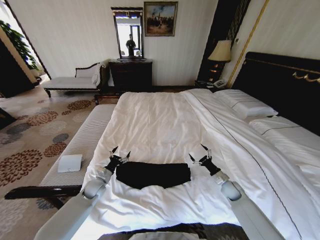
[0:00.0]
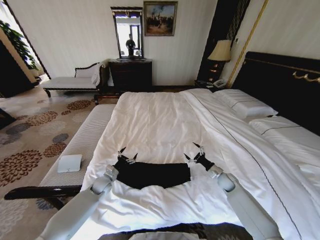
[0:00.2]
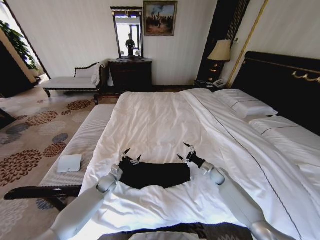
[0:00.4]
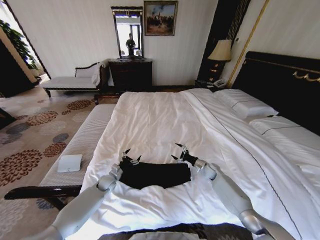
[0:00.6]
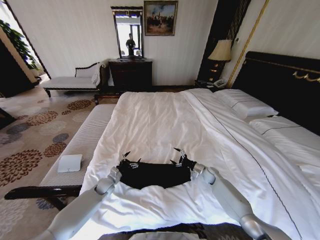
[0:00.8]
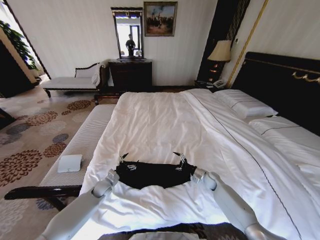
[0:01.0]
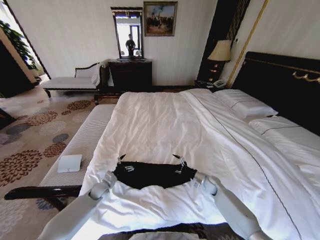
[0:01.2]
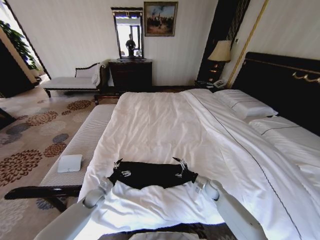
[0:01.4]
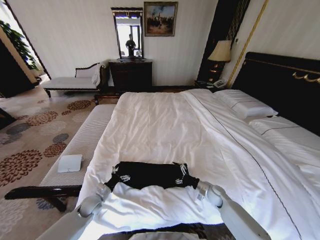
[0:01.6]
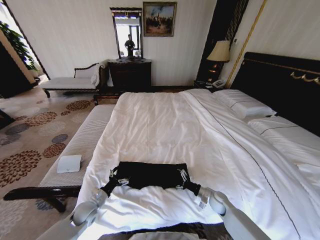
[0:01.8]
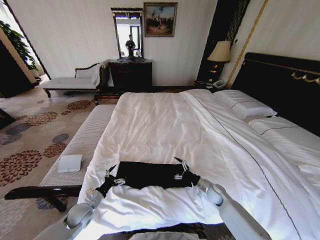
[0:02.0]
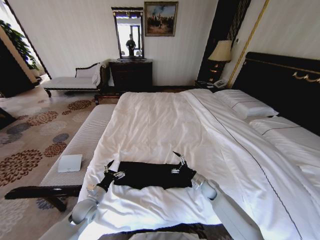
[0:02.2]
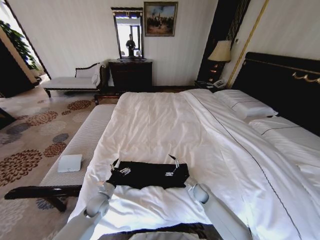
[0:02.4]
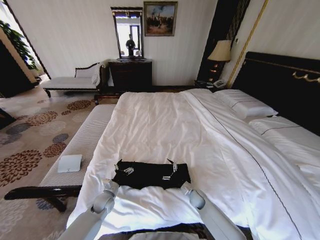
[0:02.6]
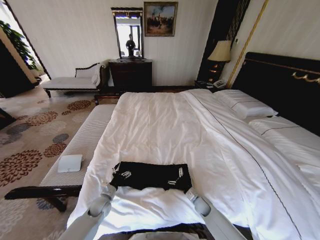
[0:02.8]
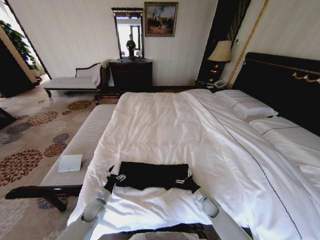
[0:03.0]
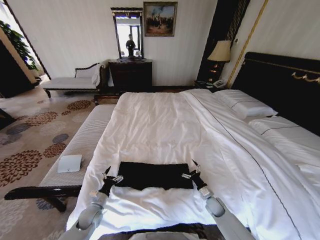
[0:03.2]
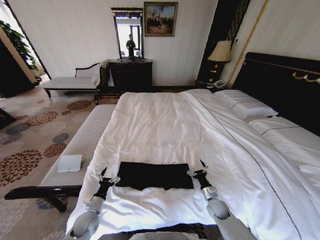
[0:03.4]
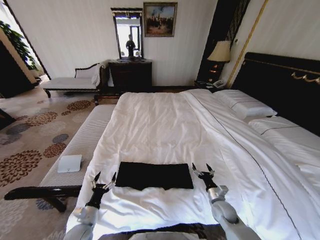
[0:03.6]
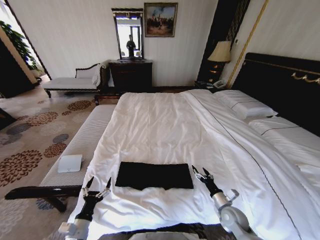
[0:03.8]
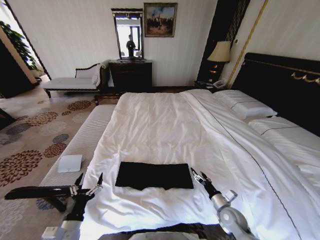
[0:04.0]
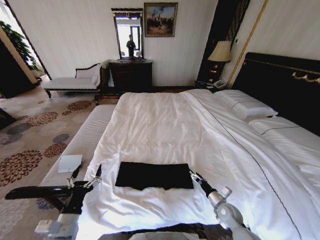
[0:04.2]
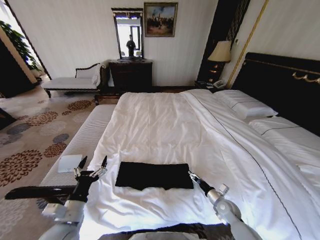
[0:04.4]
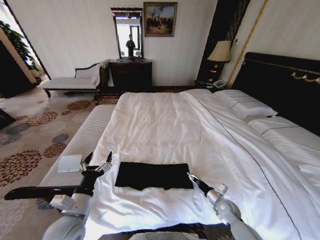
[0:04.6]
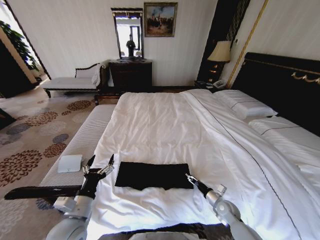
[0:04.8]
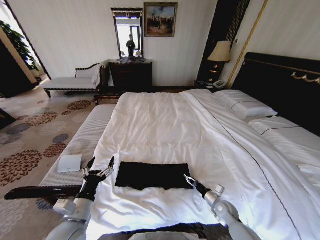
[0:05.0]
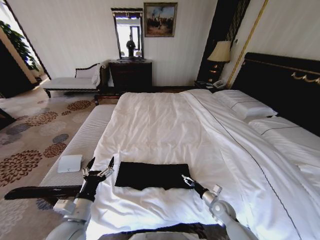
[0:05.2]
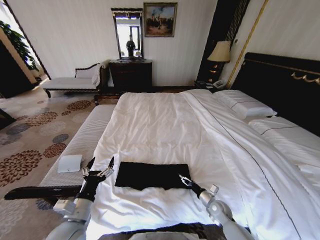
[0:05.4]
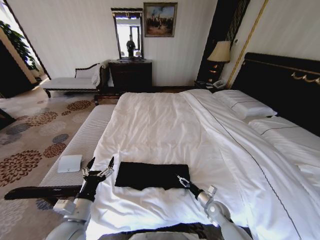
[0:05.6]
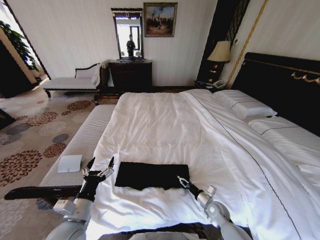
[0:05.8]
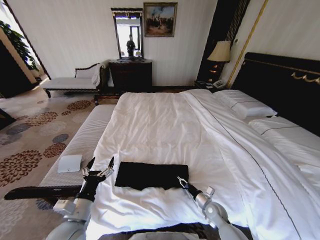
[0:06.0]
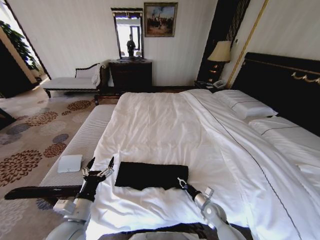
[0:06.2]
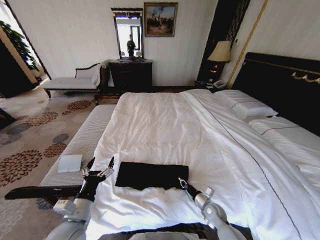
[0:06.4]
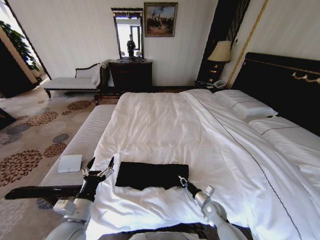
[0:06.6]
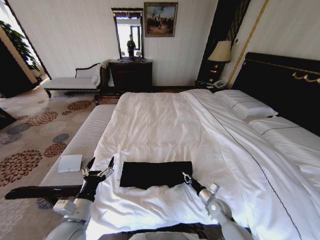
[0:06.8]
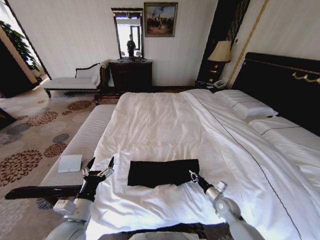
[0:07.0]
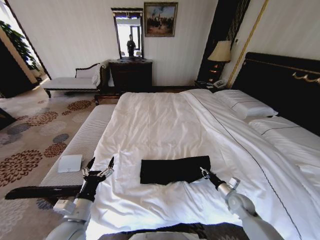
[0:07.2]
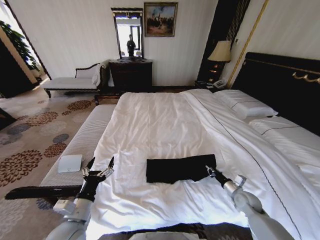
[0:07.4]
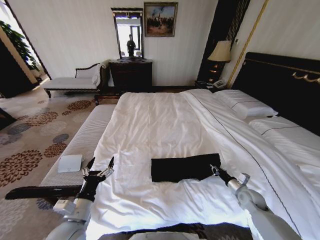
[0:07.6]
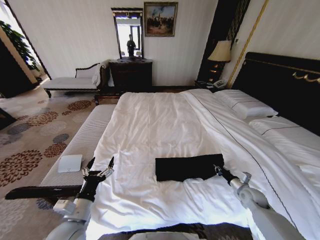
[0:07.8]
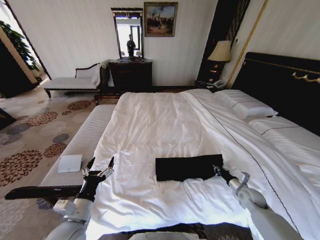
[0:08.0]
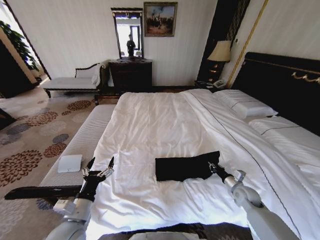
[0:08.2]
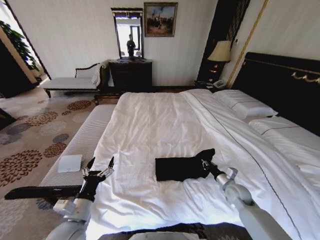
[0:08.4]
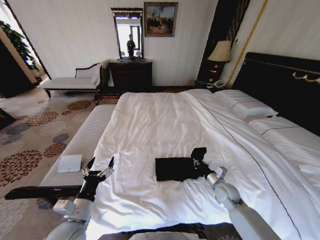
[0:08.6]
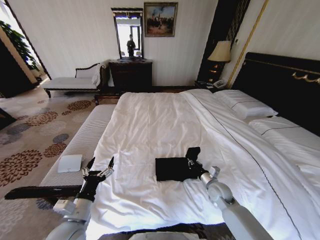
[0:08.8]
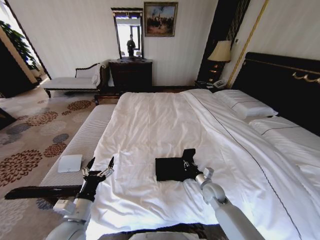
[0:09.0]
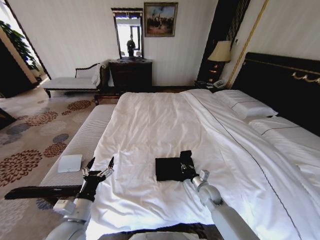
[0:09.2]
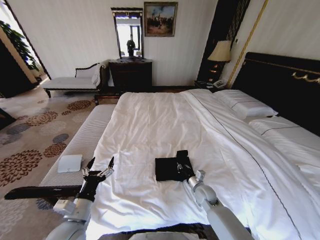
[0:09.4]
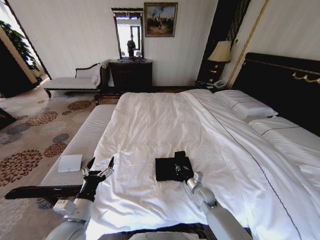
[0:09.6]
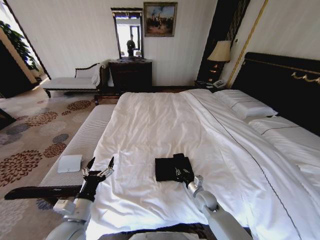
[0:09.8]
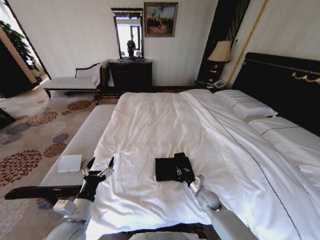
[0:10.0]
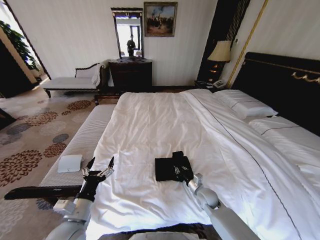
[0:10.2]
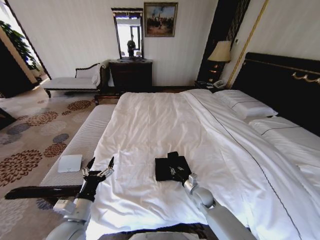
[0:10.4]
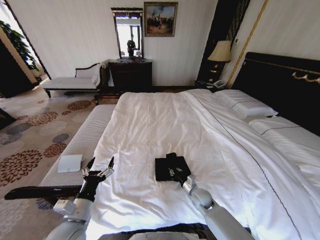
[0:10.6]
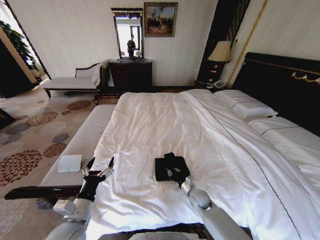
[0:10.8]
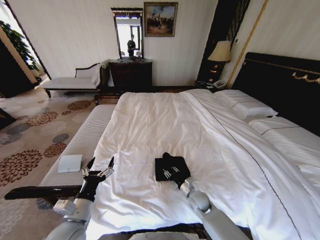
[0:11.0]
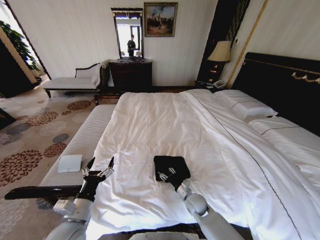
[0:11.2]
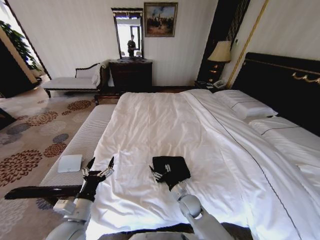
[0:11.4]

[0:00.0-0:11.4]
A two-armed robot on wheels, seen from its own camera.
Task of the whole recording: Fold the clothes on the bed.
0:00.0 to 0:01.4: The right gripper is displaced to the left by approximately 5 cm, and moves about 10 cm forward and comes back; the left gripper heads downward, covering some 5 cm.
0:01.4 to 0:02.8: The right gripper shifts approximately 10 cm downward, backward and to the left.
0:02.8 to 0:04.2: The left gripper heads upward and backward, covering roughly 25 cm, while the right gripper goes approximately 15 cm upward, to the right and backward.
0:04.2 to 0:05.6: The left gripper changes place by some 5 cm.
0:05.6 to 0:07.2: The right gripper is displaced to the right and upward by about 10 cm, and closes.
0:07.2 to 0:08.6: The right gripper goes about 5 cm to the left and upward.
0:08.6 to 0:10.0: The right gripper is displaced to the left and downward by some 10 cm.
0:10.0 to 0:11.4: The right gripper heads to the left, covering roughly 10 cm, and opens.

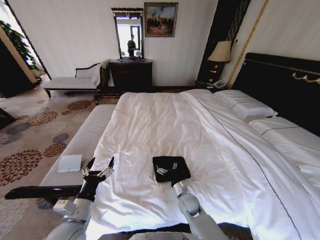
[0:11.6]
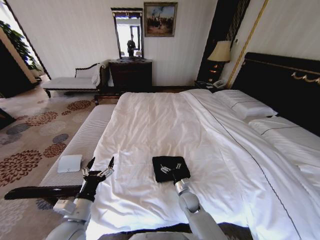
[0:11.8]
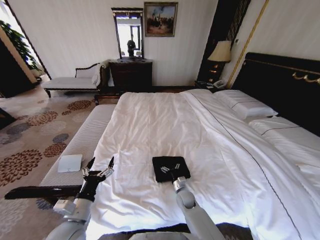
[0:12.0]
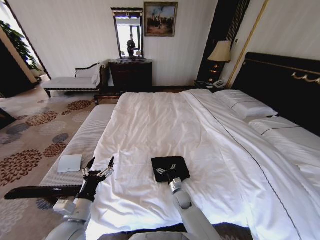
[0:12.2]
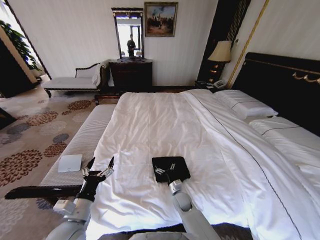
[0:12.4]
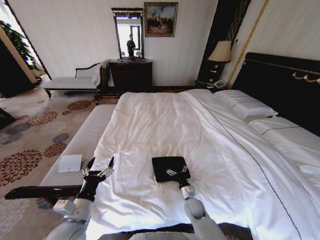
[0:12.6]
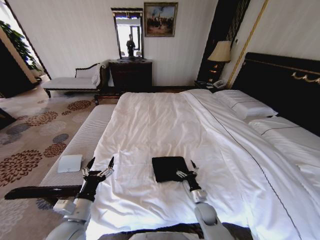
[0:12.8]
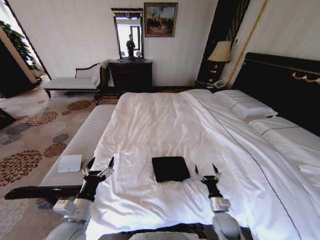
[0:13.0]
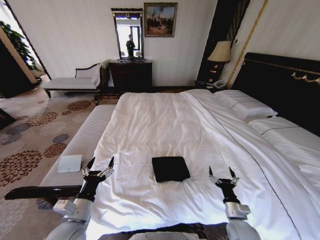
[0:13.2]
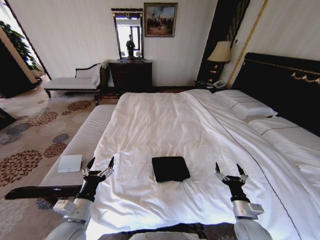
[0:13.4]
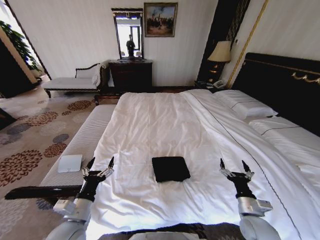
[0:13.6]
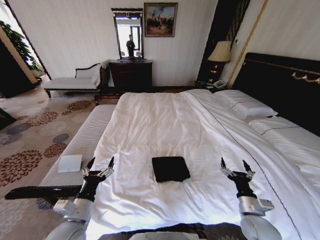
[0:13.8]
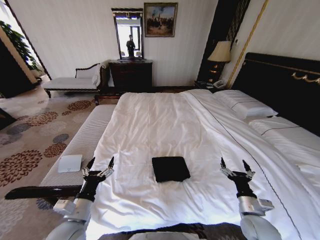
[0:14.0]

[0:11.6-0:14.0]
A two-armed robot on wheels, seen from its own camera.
Task of the whole recording: Fold the clothes on the bed.
0:11.6 to 0:12.8: The right gripper shifts some 10 cm to the right.
0:12.8 to 0:14.0: The right gripper moves upward, to the right and backward, about 20 cm.

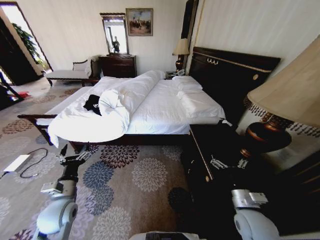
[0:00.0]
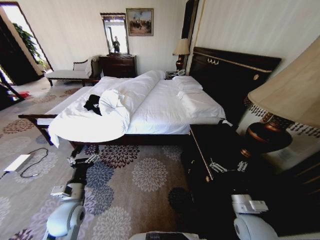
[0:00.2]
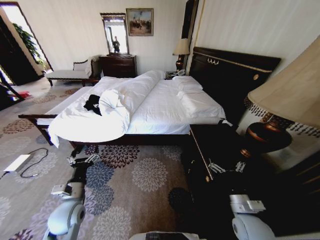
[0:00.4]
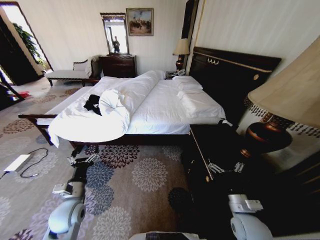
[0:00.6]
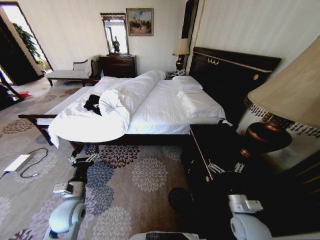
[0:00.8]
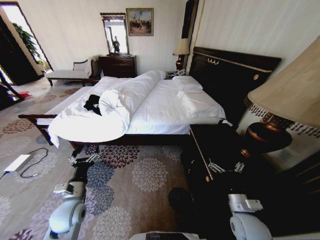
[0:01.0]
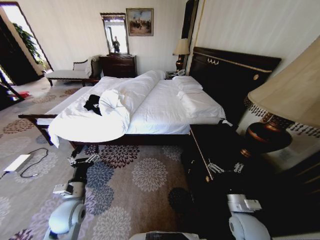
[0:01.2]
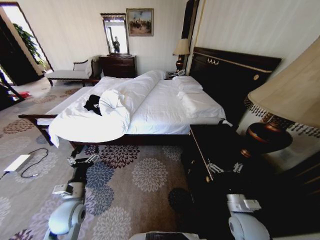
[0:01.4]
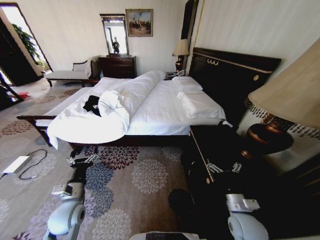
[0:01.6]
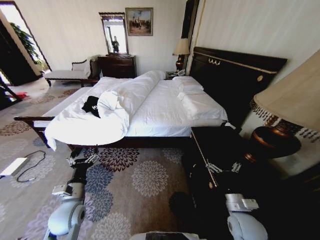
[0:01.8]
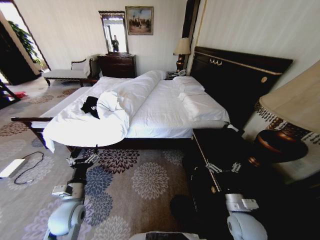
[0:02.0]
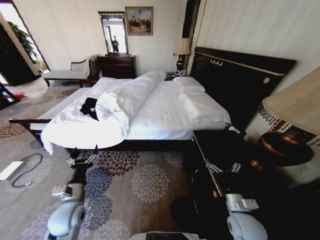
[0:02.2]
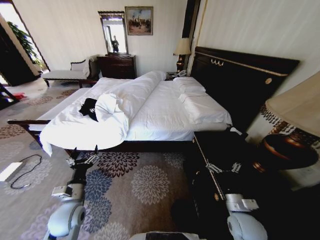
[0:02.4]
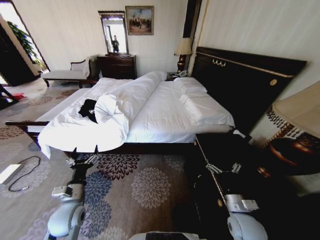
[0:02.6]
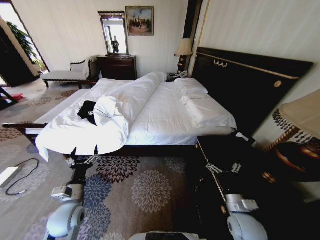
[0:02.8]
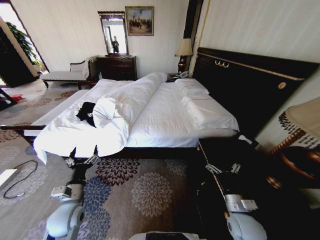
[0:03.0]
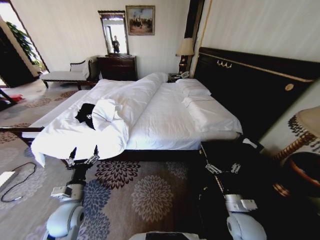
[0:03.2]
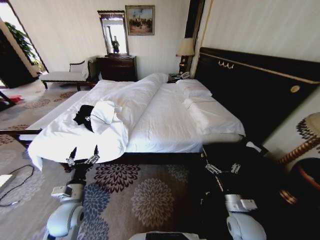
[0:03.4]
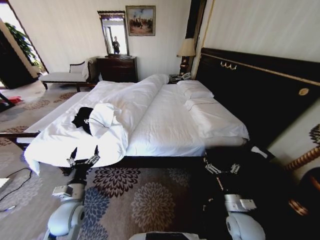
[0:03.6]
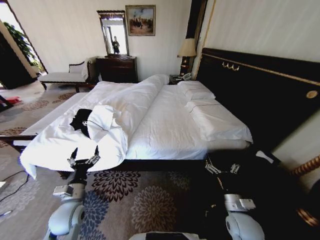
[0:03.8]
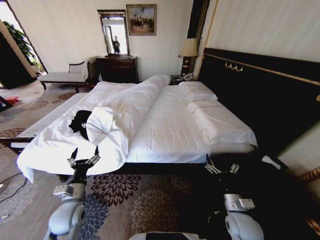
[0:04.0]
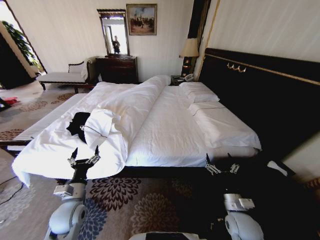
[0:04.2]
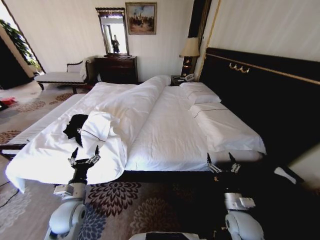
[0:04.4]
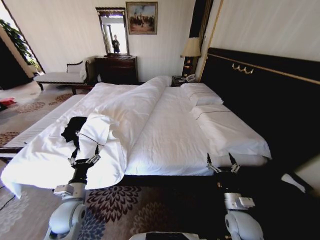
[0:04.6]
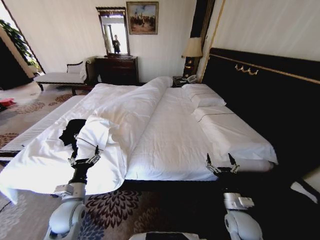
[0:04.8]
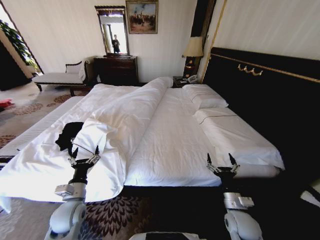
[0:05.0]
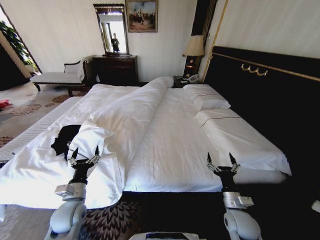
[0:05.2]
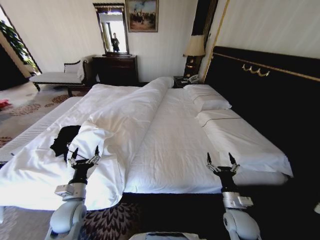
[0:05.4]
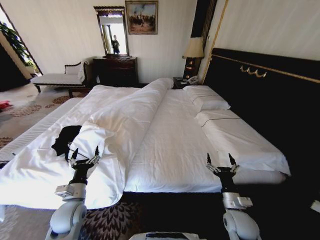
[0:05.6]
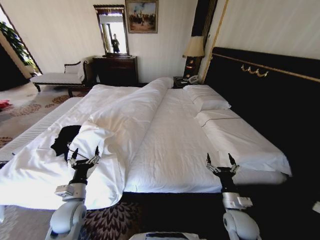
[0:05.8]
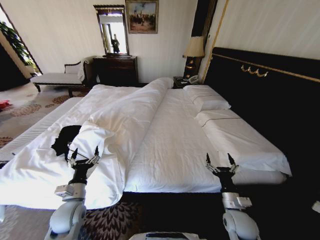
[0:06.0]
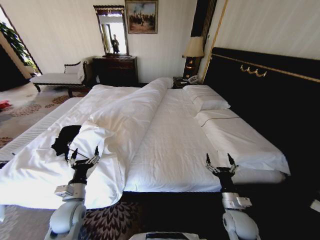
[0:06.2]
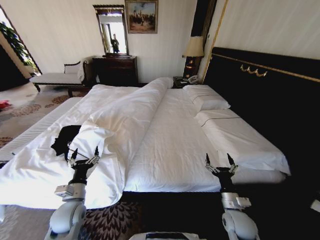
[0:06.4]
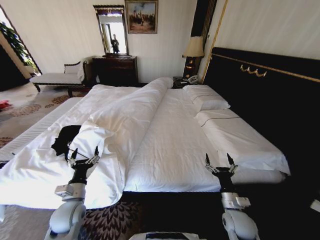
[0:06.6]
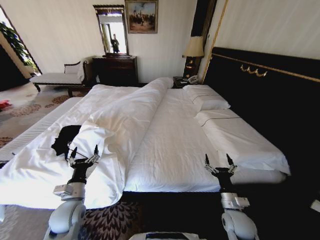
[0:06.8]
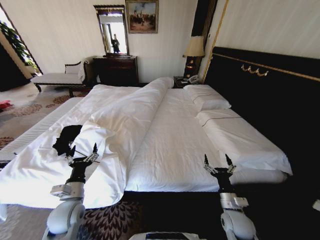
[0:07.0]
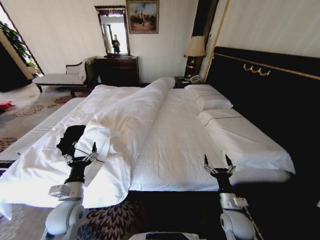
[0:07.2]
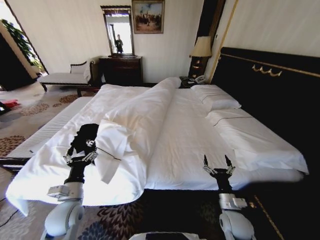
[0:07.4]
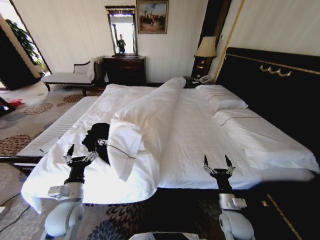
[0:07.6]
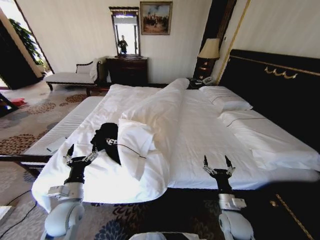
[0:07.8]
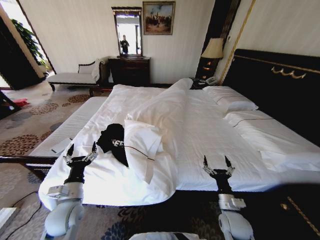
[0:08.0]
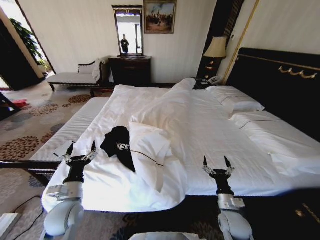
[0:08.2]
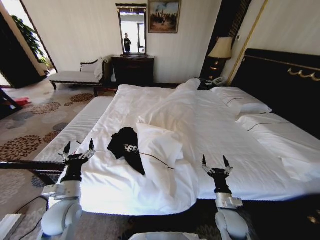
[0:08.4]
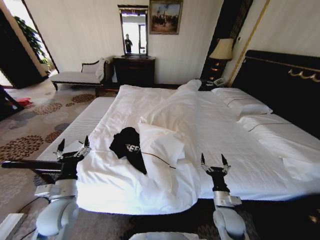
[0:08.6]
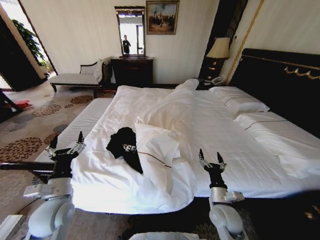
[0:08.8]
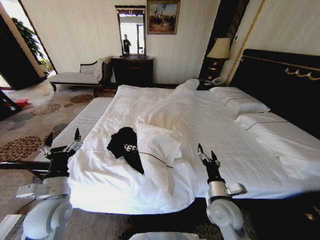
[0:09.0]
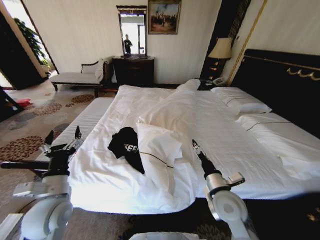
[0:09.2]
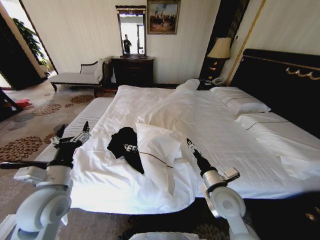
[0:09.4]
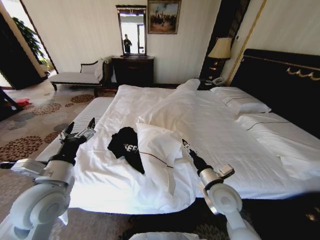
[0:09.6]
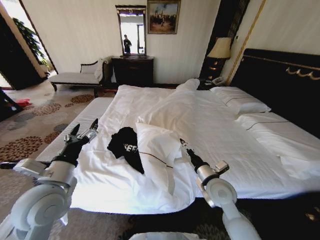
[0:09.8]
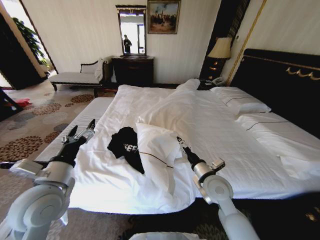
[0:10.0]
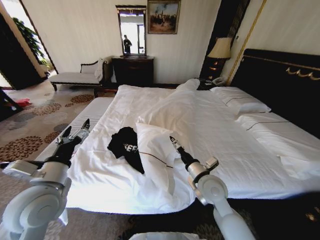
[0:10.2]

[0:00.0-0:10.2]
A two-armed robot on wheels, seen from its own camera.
Task of the whole recording: Fold the clothes on the bed.
0:05.8 to 0:07.2: The grippers move only a little.
0:08.8 to 0:10.2: The right gripper travels upward, to the left and forward by about 15 cm. The left gripper goes some 10 cm upward.
